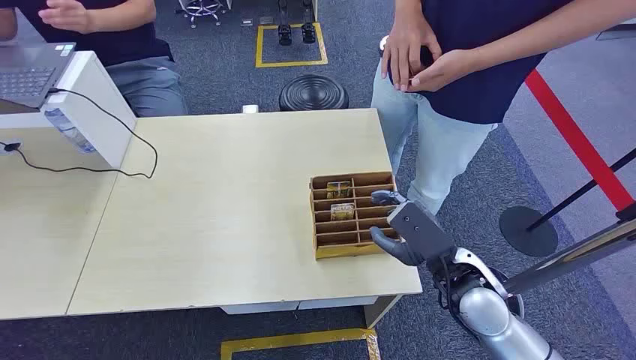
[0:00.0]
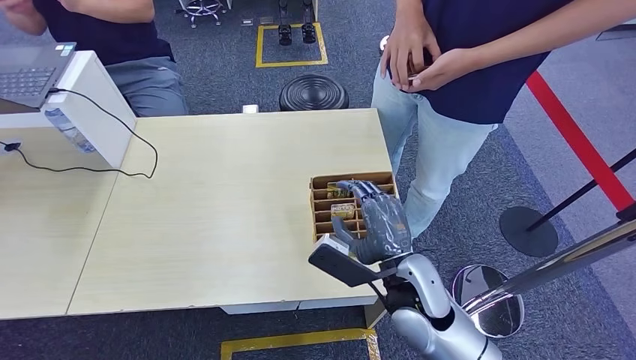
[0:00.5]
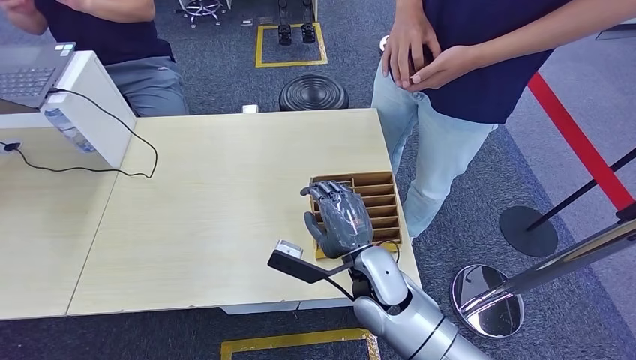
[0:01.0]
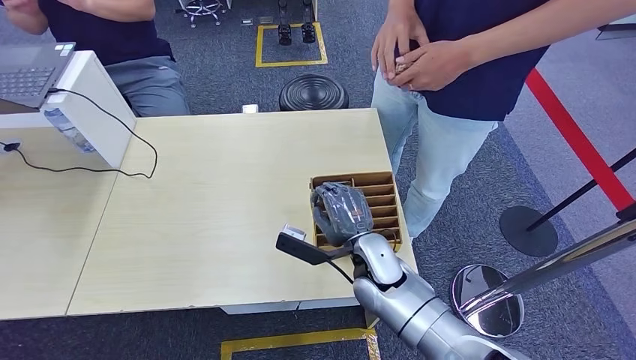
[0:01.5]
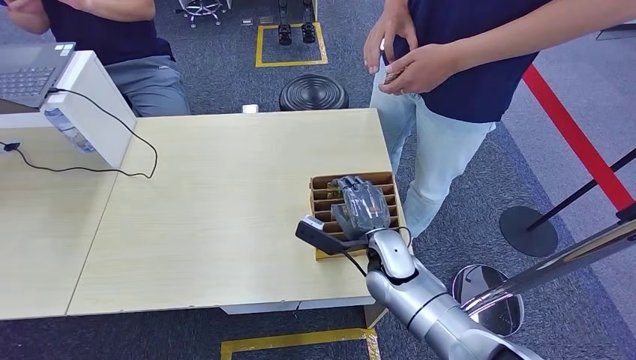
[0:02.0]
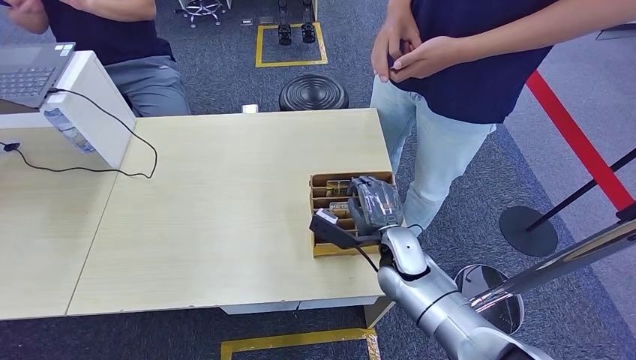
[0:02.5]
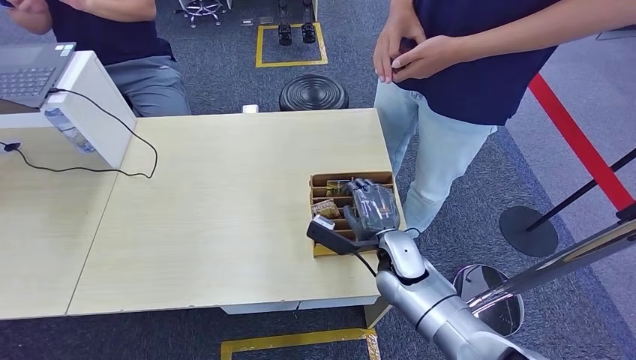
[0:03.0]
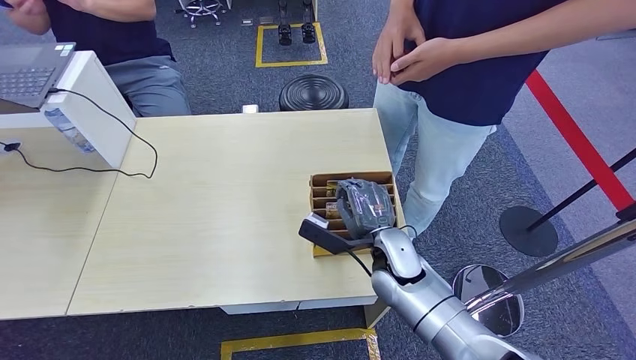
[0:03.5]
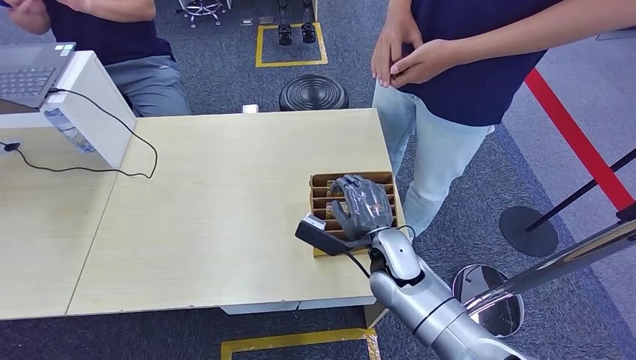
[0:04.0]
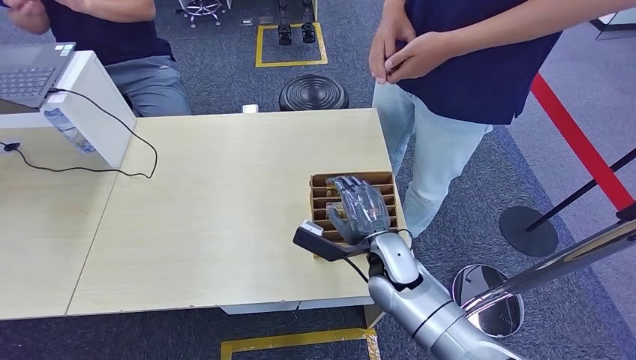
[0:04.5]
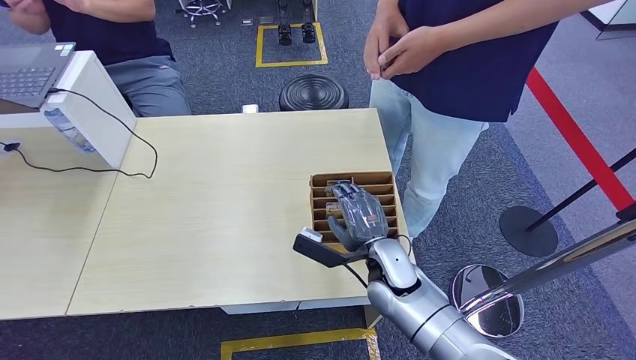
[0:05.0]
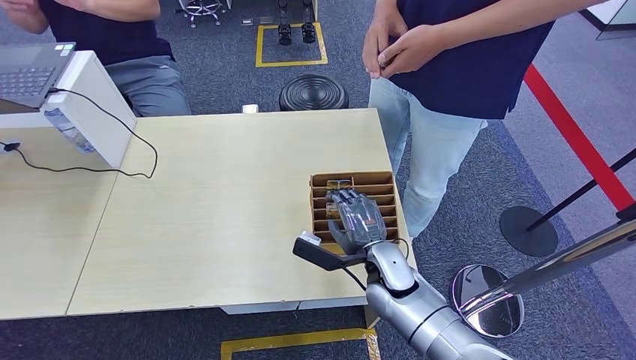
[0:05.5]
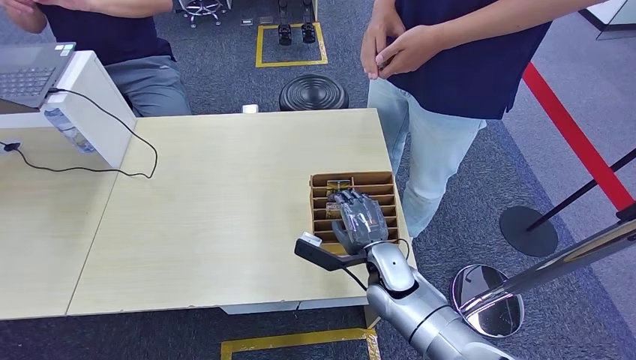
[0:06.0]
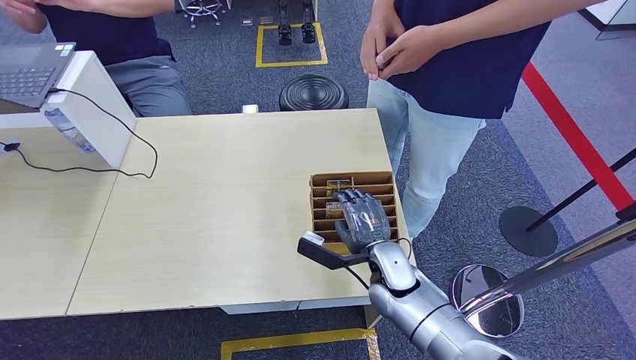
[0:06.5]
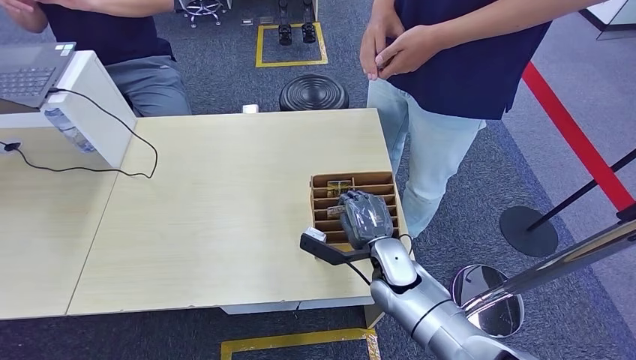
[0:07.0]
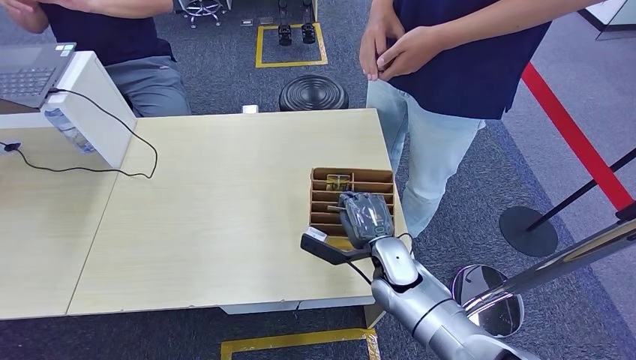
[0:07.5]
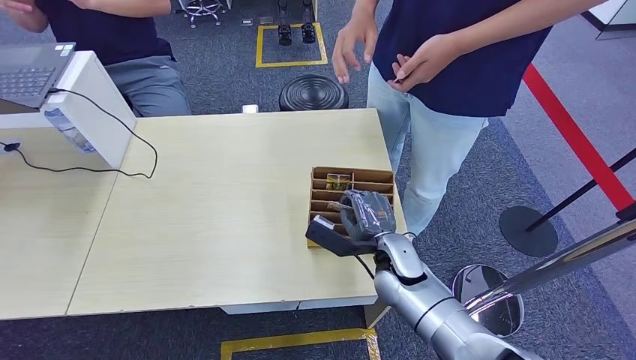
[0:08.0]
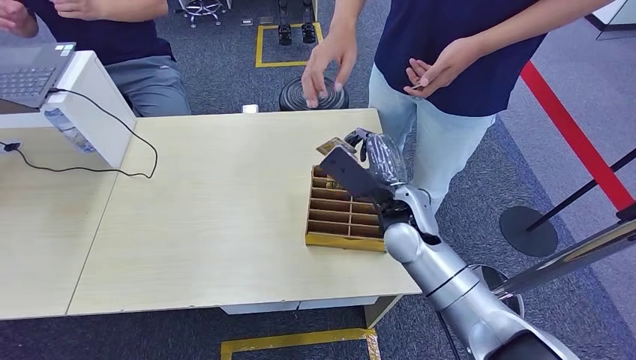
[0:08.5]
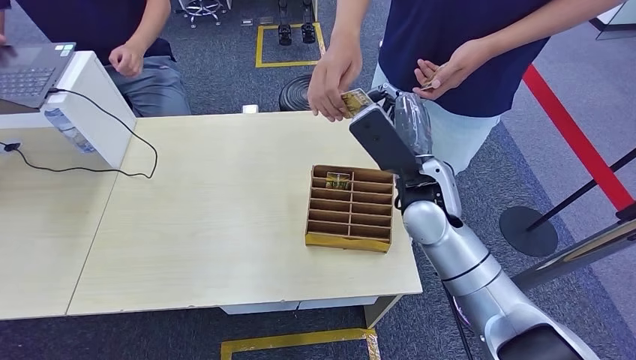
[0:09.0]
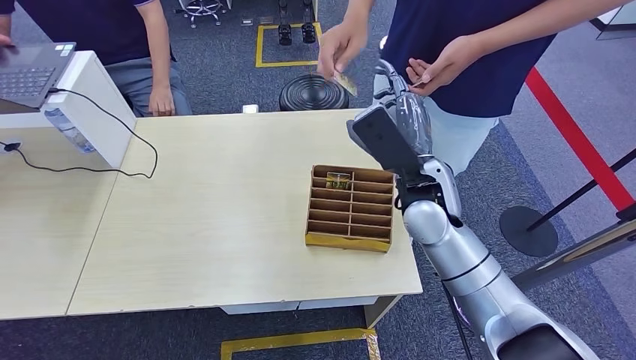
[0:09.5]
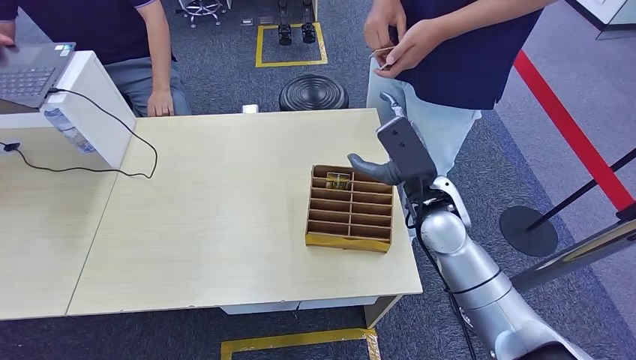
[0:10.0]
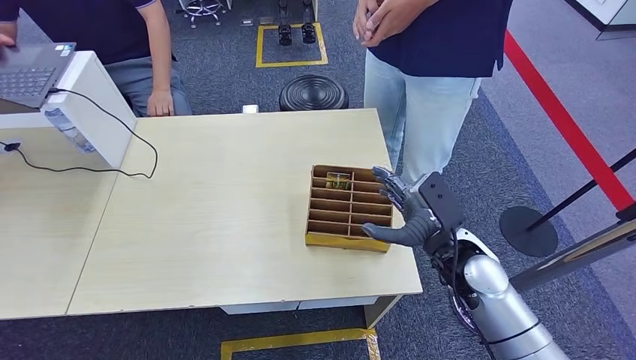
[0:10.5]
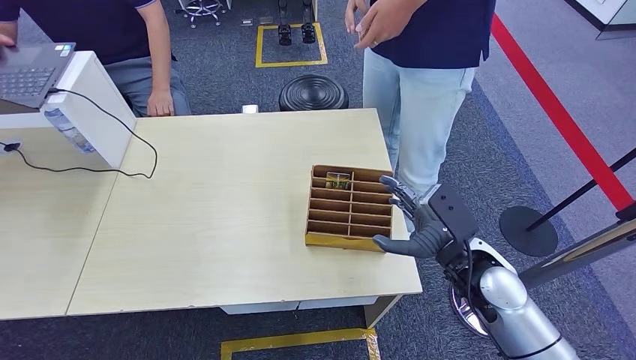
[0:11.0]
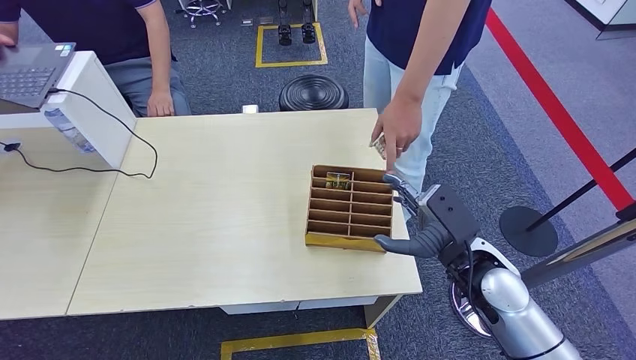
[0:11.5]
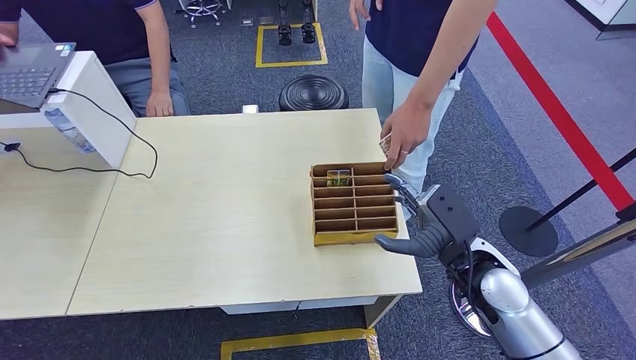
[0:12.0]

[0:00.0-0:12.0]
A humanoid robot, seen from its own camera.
Task of the whole recording: Pick up the card and hand it over to the target person.
Step, 0:00.0 to 0:08.5: Pick up the key card from the card box.
Step, 0:09.0 to 0:12.0: Hand the key card to the target.
0:02.0 to 0:06.0: The hands make only small movements.
0:06.0 to 0:08.0: The right hand moves upward, approximately 5 cm.
0:08.0 to 0:10.0: The right hand is displaced to the right and upward by roughly 10 cm.
0:10.0 to 0:12.0: The right hand travels backward by approximately 5 cm.

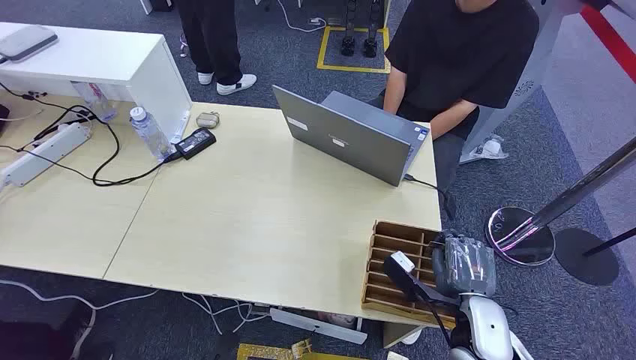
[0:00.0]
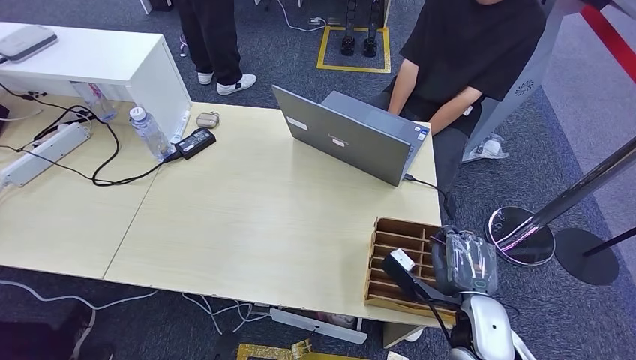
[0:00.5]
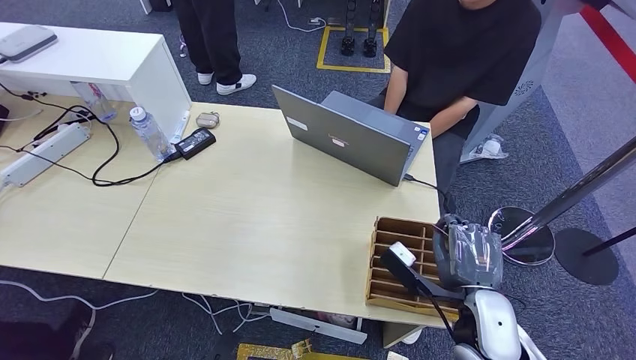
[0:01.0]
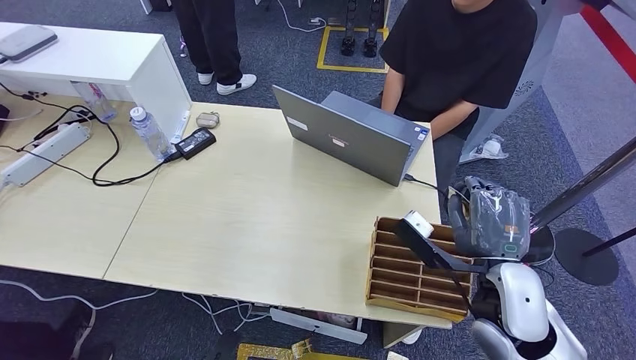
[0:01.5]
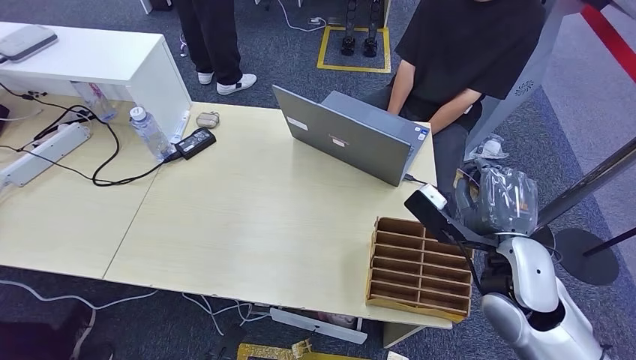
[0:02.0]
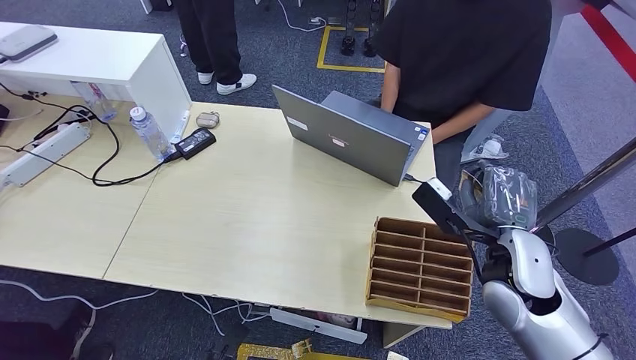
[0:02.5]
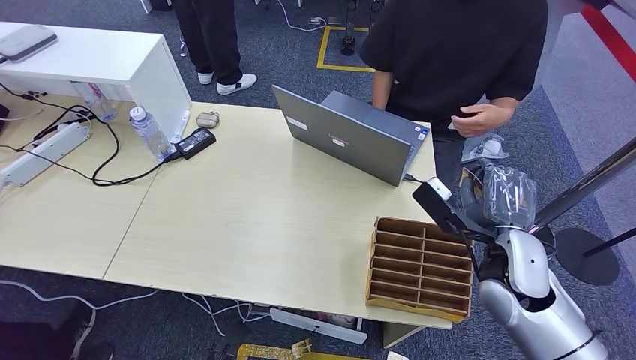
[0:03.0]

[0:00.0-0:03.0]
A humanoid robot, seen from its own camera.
Task of the whole recording: Pick up the card and hand it over to the target person.
Step, 0:00.0 to 0:01.5: Pick up the key card from the card box.
Step, 0:02.0 to 0:03.0: Hand the key card to the target.
0:01.5 to 0:03.0: The right hand shifts by approximately 5 cm.
